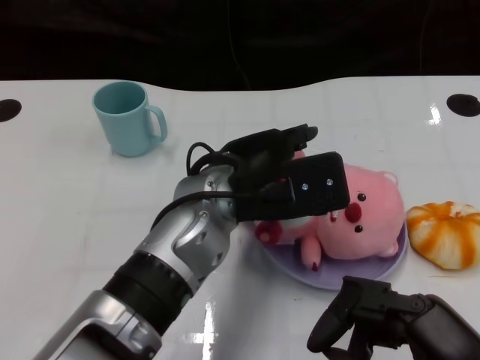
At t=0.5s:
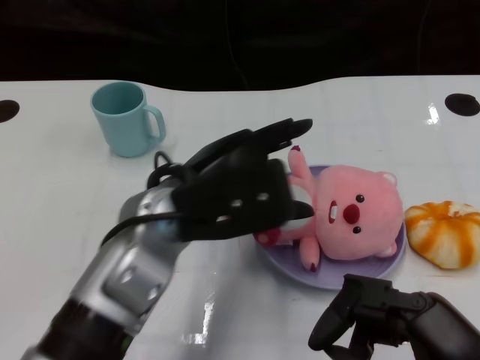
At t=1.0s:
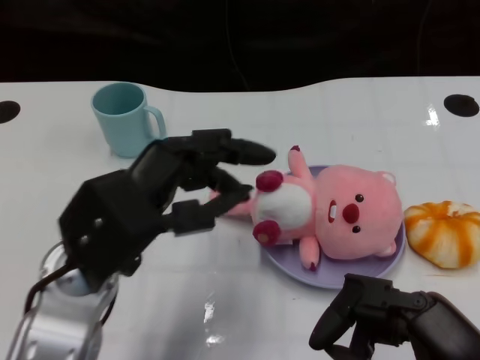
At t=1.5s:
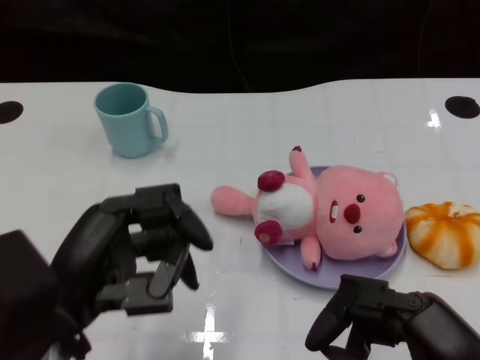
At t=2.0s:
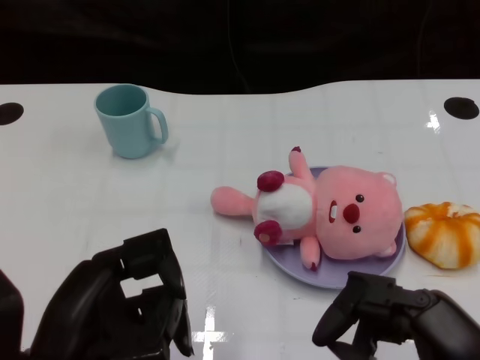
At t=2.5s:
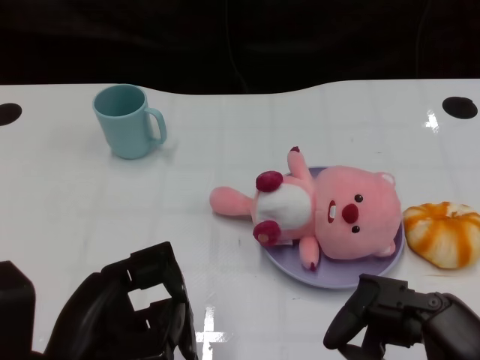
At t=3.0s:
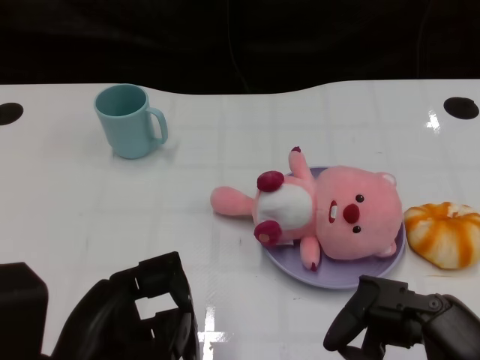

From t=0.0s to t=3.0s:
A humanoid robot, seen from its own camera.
Task of the whole recording: Pick up the doll on one side of the plate and place it into the plate.
From t=0.0s to t=1.5s: The left hand shifts roughly 20 cm to the left and backward.

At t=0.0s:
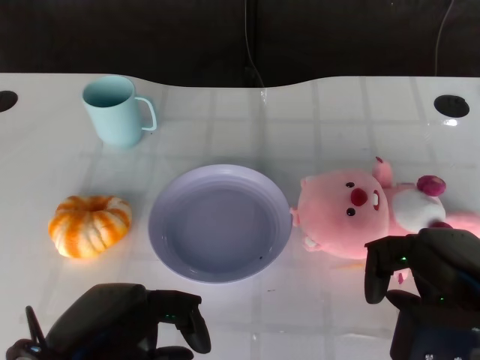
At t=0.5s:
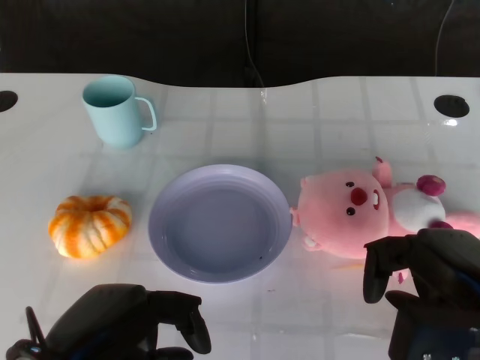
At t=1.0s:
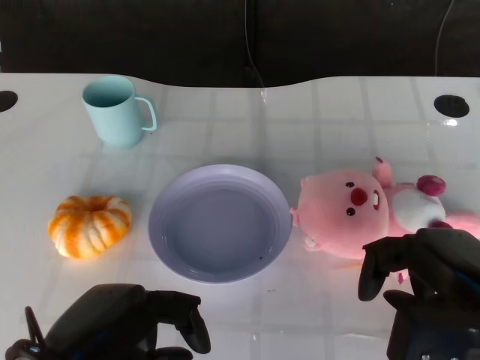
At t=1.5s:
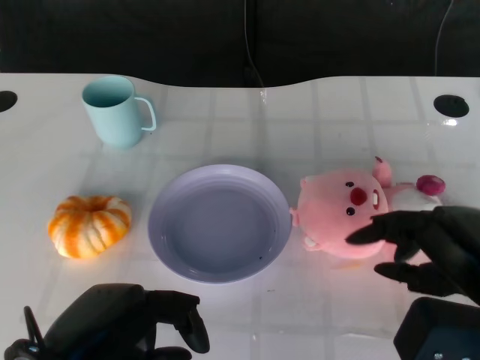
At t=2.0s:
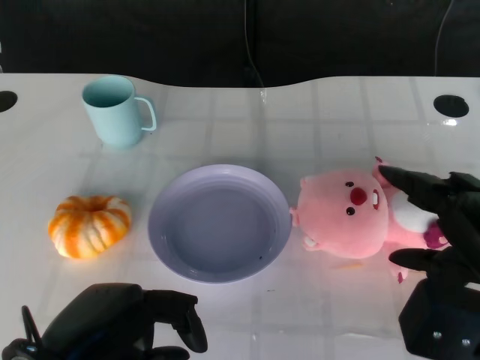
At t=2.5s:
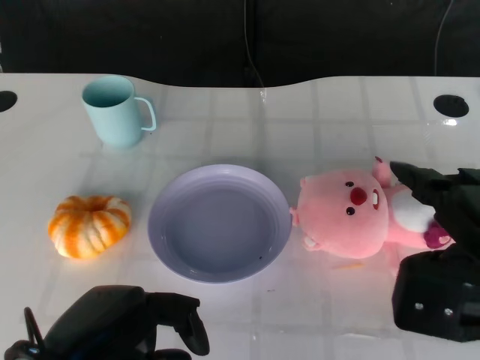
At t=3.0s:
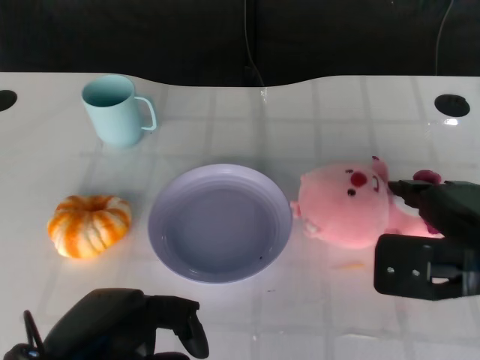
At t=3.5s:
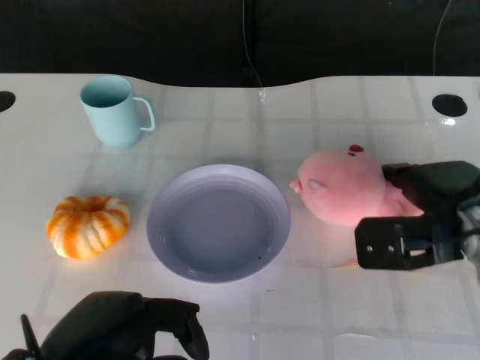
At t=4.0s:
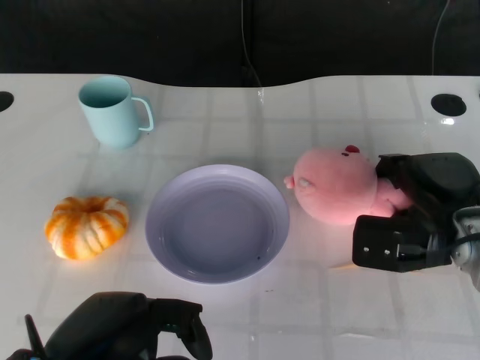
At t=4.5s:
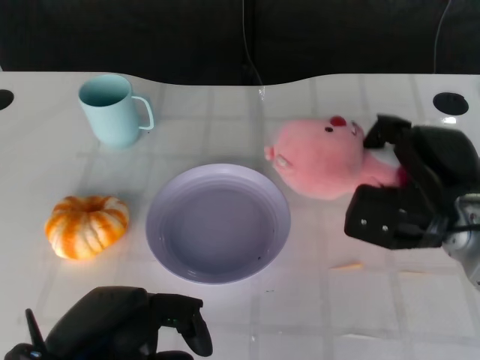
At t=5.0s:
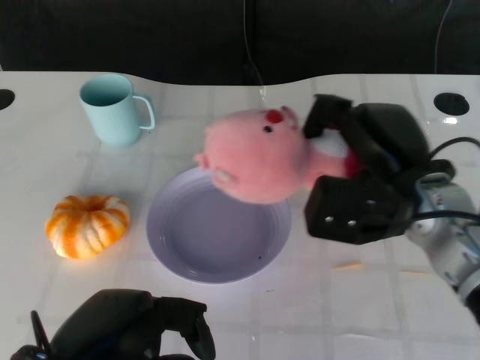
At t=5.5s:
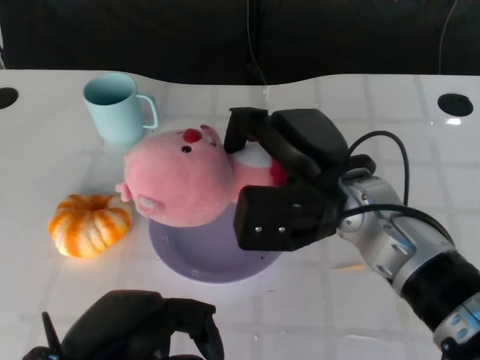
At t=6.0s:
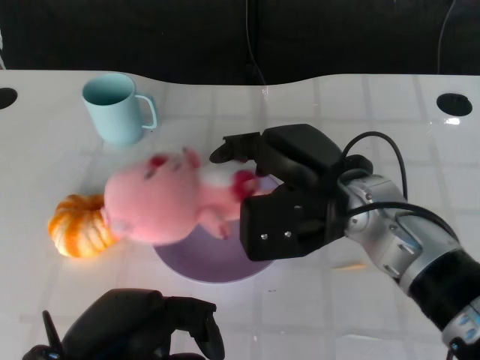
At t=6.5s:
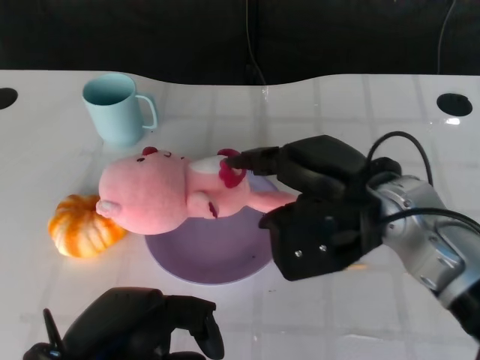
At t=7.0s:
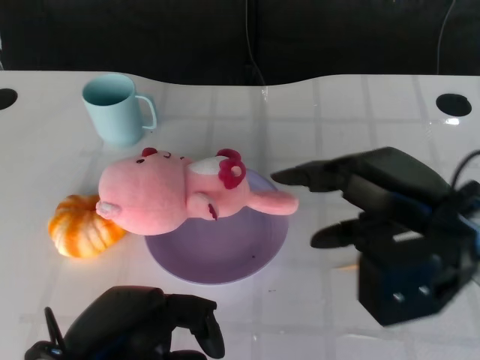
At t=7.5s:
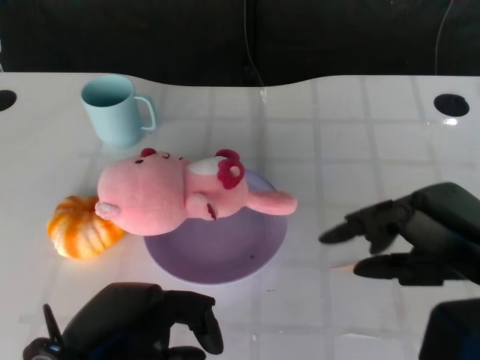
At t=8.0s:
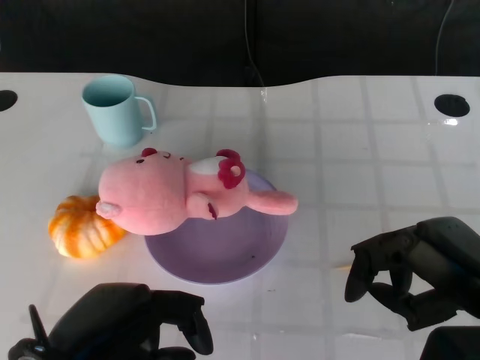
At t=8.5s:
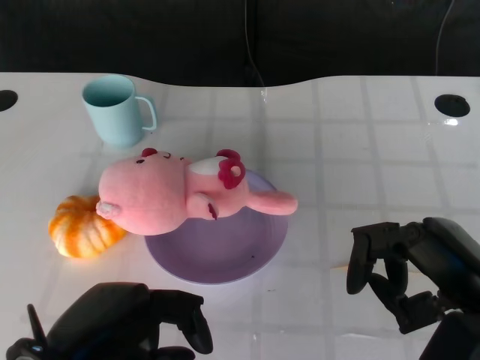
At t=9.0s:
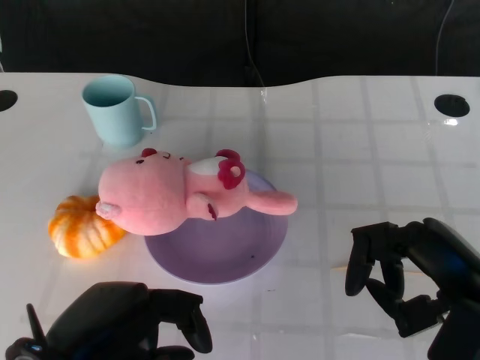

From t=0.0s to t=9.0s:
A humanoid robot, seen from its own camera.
Task of the whole recording: Pick up the doll on the other side of the plate and place it into the plate.
Step, from t=1.5s to t=4.0s: Grasp the pink doll with the right gripper.
Step, from t=4.5s to t=6.5s: Place the pink doll into the plate with the right gripper.
From t=2.0s to t=4.5s: The right hand is displaced forward by about 10 cm.
From t=4.5s to t=7.0s: The right hand heads upward and backward, covering roughly 10 cm, and travels to the left and back again, about 10 cm each way.
From t=7.0s to t=9.0s: The right hand is displaced backward by approximately 5 cm.

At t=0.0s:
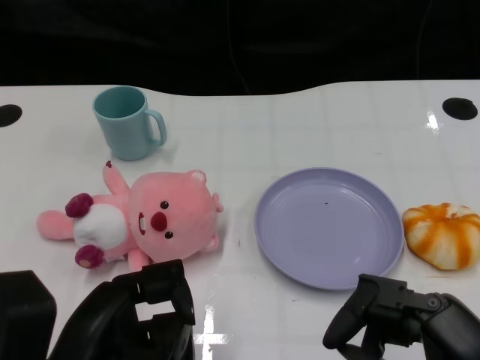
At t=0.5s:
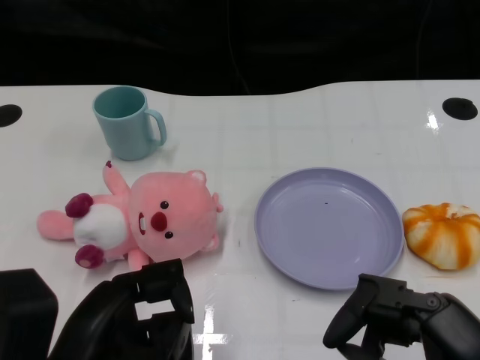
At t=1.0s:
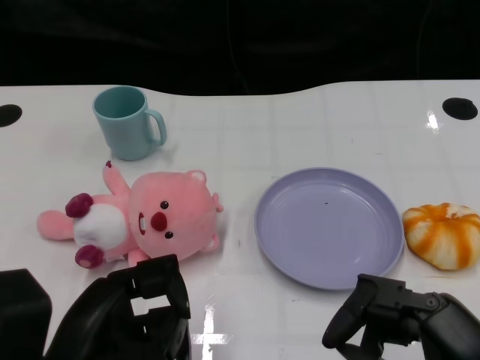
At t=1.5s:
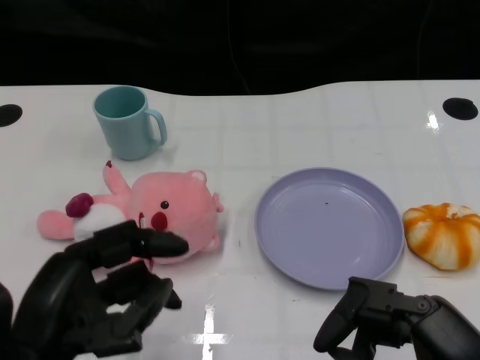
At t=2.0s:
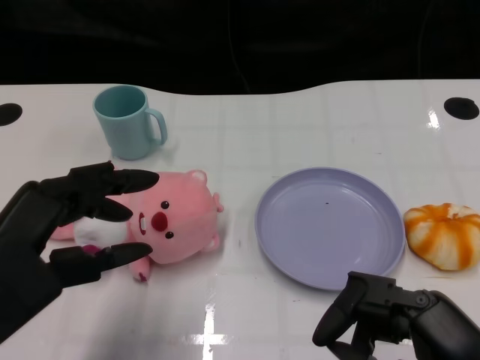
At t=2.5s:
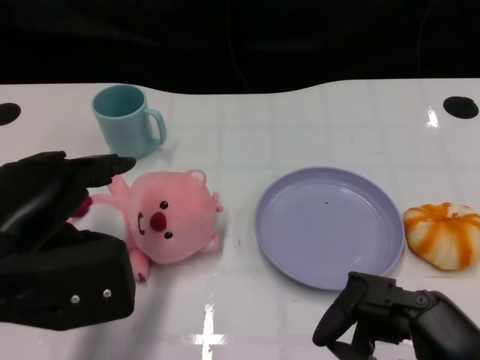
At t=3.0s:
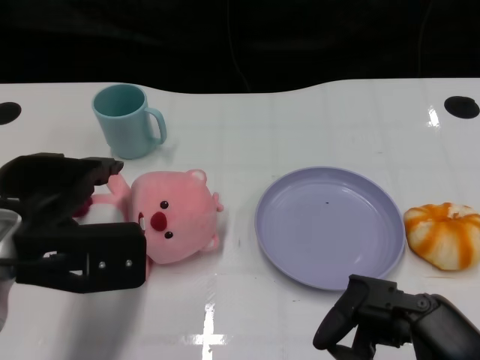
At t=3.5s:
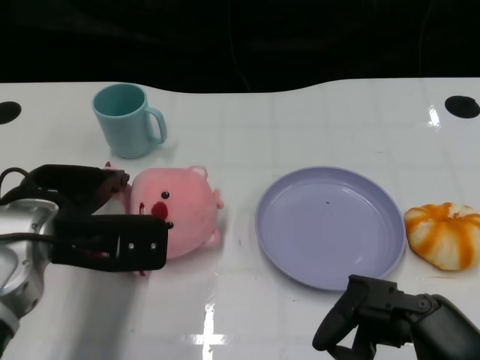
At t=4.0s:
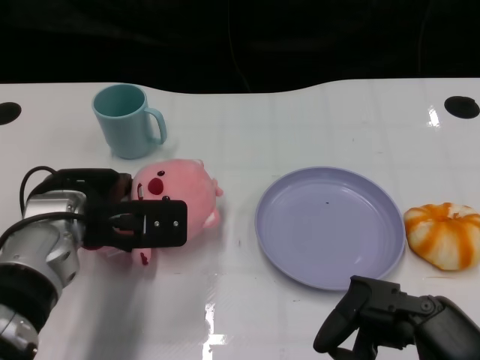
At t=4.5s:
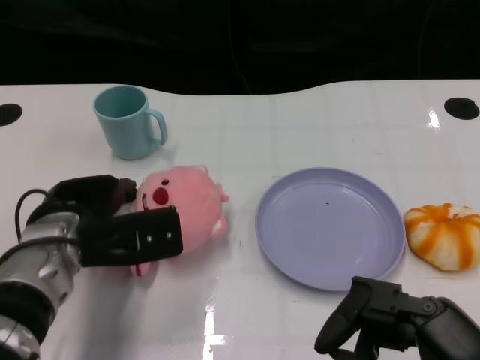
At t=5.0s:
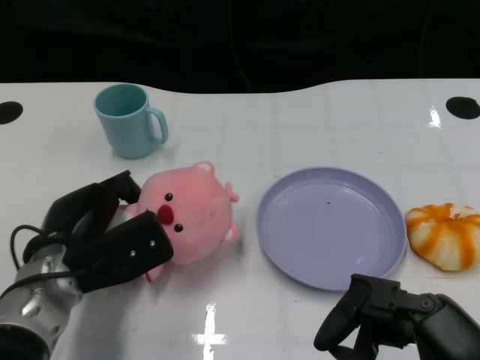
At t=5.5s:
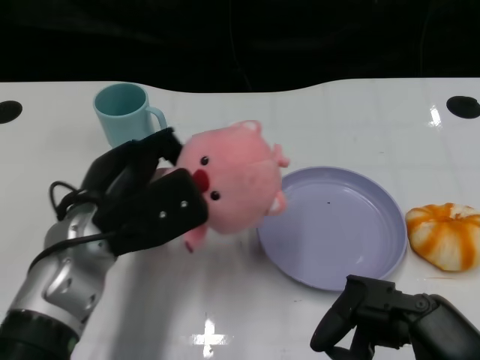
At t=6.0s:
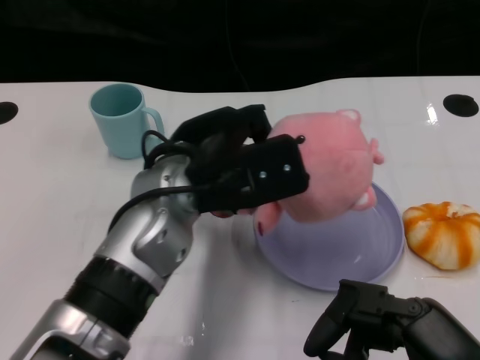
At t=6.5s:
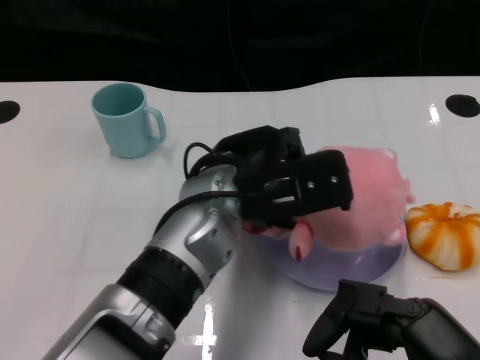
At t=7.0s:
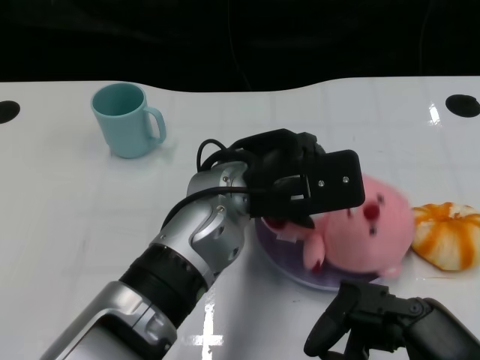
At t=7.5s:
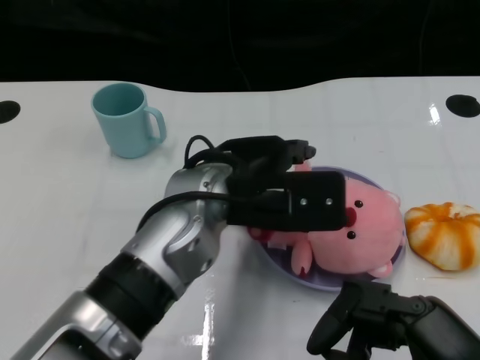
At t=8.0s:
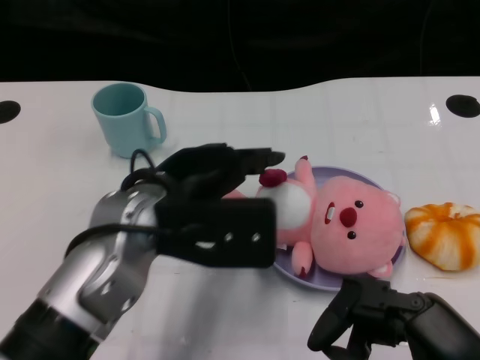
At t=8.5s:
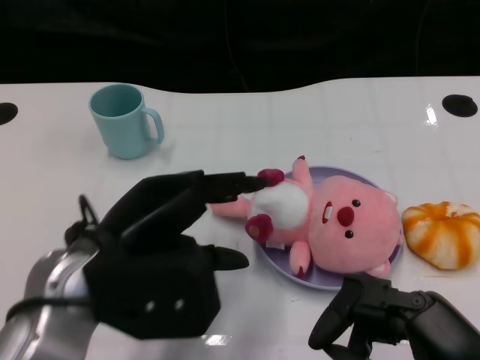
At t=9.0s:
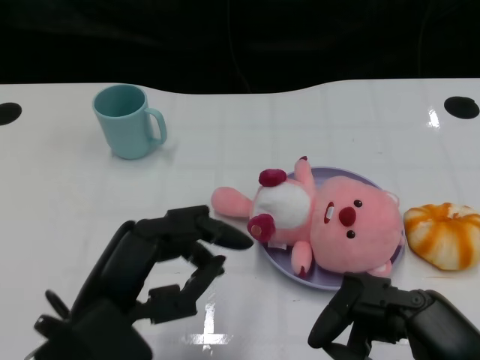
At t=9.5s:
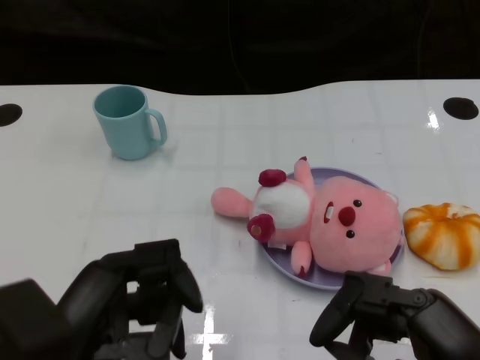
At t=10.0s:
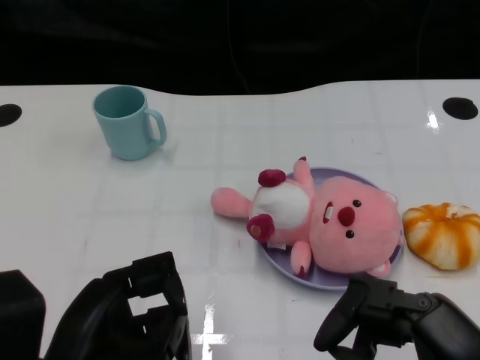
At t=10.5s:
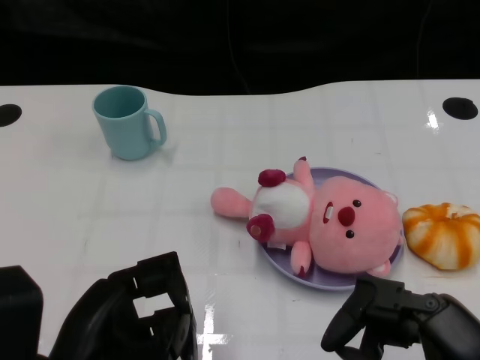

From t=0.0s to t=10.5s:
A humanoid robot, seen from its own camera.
Task of the whole recording: Pick up the doll on one side of the plate and place it into the plate.
Step, from t=1.0s to t=5.0s: Grasp the pink doll with the left gripper.
Step, from t=5.5s to t=7.0s: Place the pink doll into the plate with the left gripper.
From t=2.0s to t=4.0s: The left hand is displaced forward and downward by approximately 15 cm.
From t=4.0s to t=6.5s: The left hand heads to the right, covering about 15 cm.
From t=6.5s to t=8.5s: The left hand is displaced to the left and backward by roughly 15 cm.
From t=8.5s to t=10.5s: The left hand travels backward by some 10 cm.

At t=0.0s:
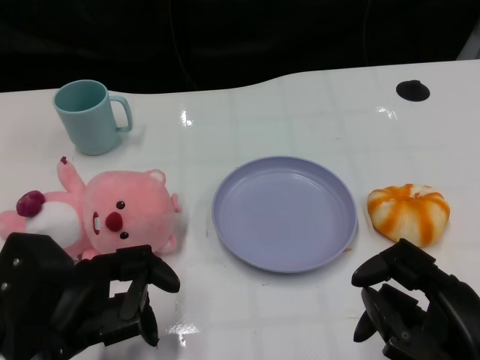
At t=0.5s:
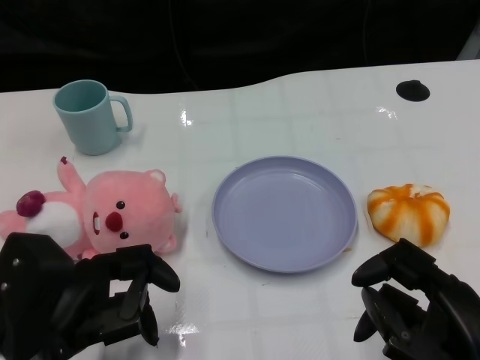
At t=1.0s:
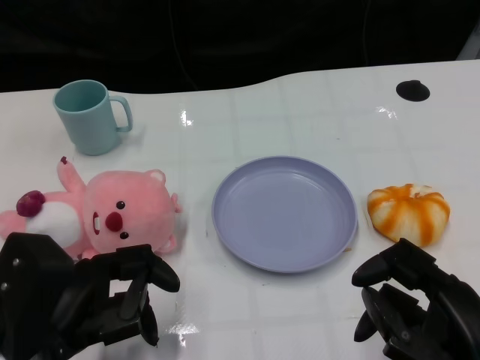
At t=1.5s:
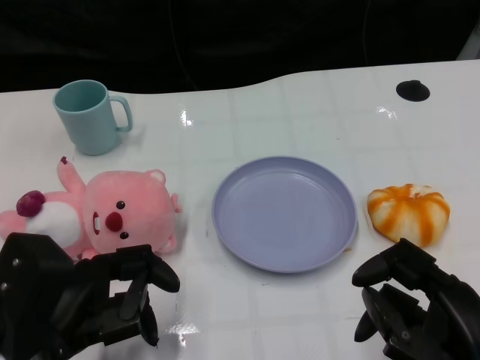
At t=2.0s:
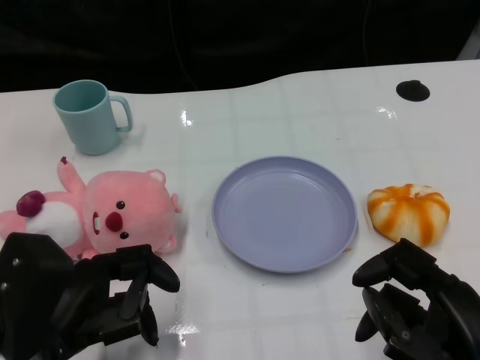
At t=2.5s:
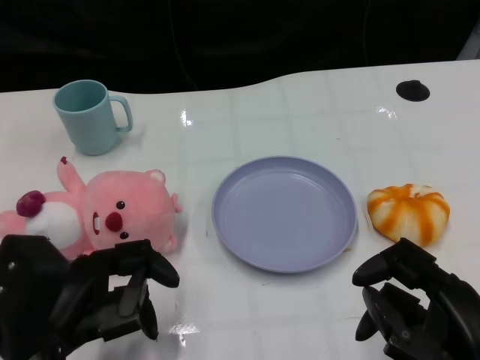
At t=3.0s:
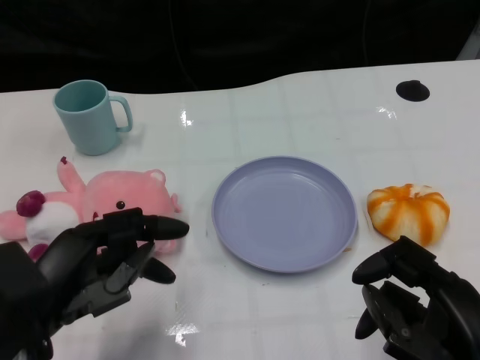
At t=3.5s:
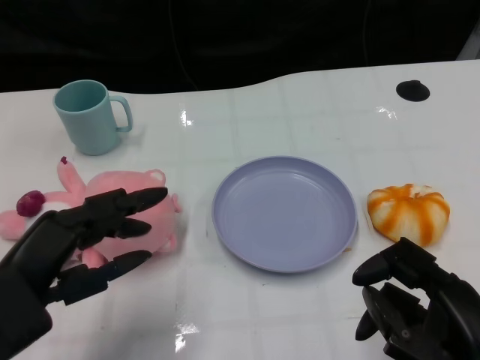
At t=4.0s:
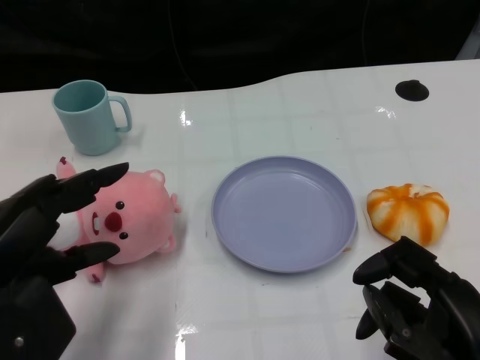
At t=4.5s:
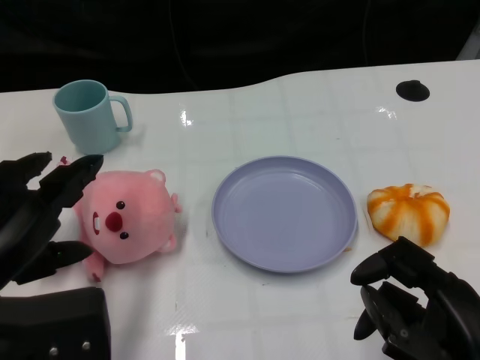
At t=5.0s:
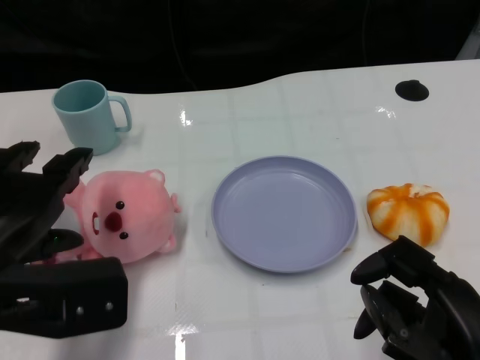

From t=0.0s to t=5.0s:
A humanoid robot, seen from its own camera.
Task of the whole recording: Pick up the doll on one side of the plate and place it into the plate.
From t=2.5s to t=5.0s: The left hand heads upward, covering roughly 5 cm.
